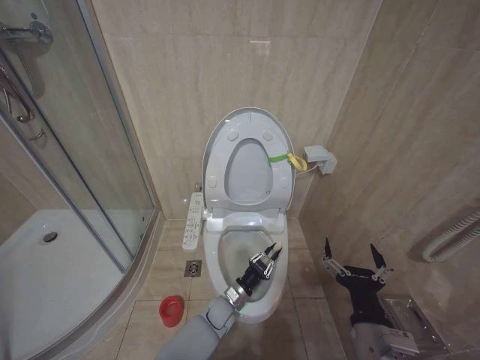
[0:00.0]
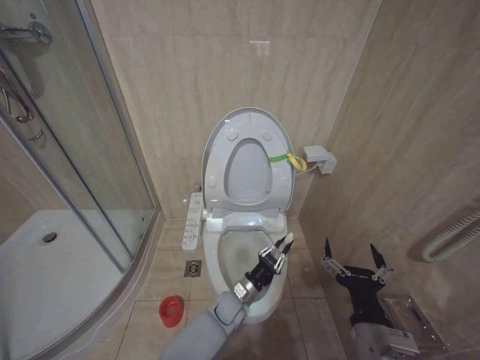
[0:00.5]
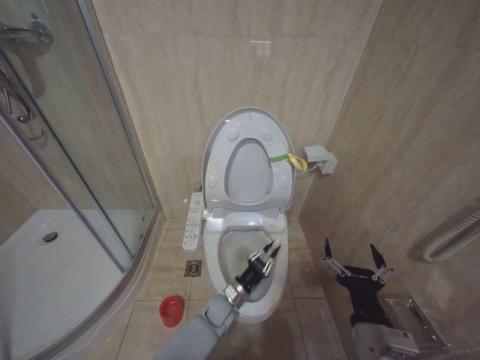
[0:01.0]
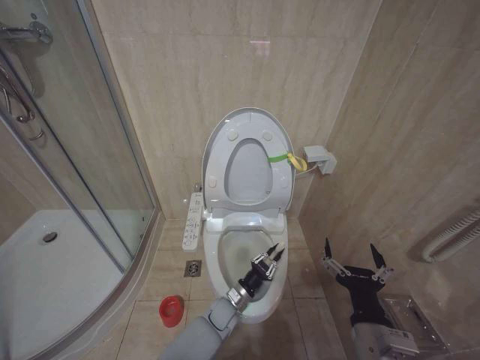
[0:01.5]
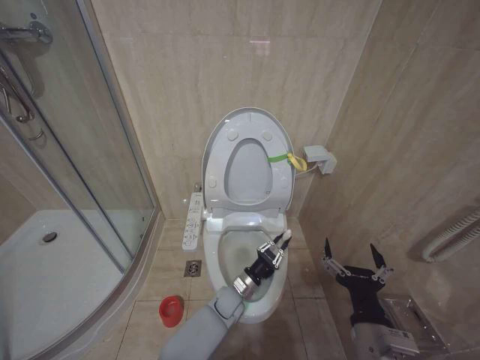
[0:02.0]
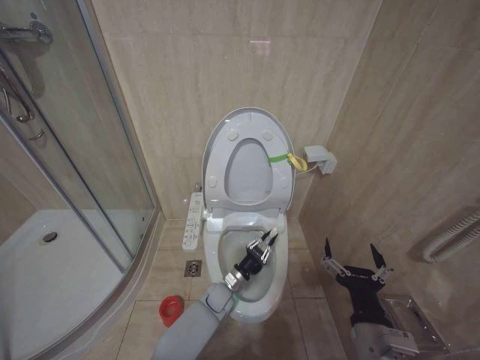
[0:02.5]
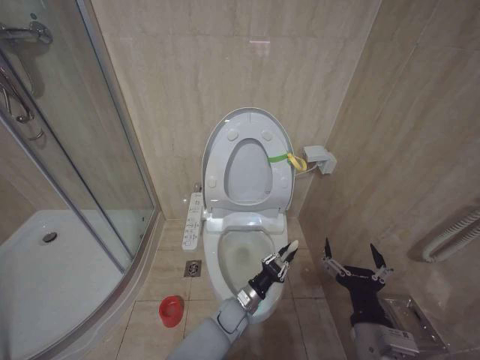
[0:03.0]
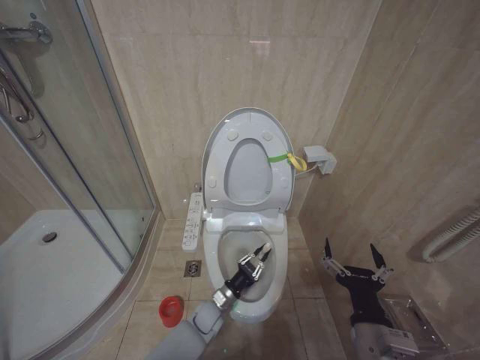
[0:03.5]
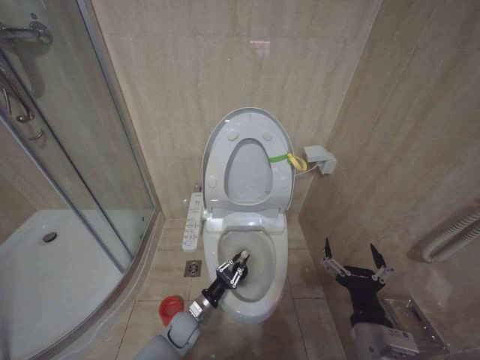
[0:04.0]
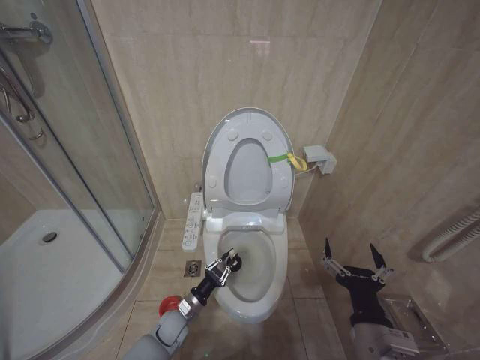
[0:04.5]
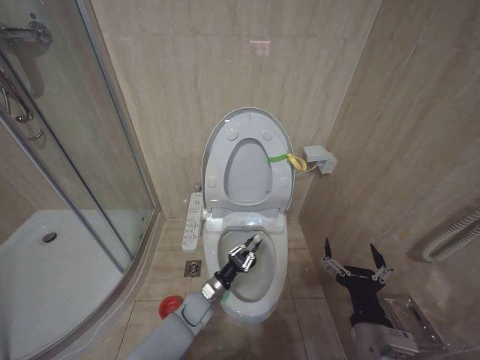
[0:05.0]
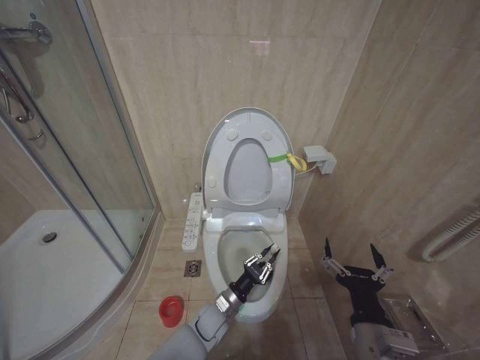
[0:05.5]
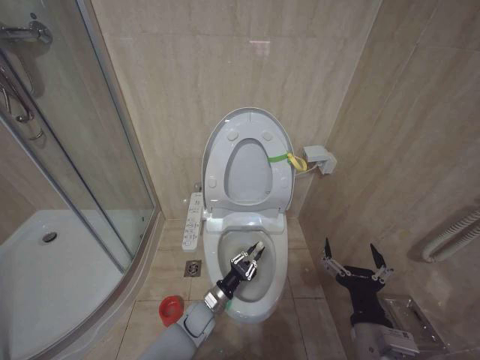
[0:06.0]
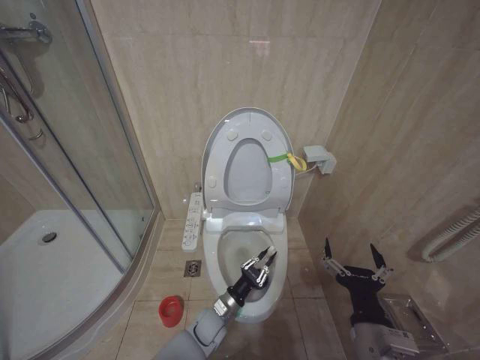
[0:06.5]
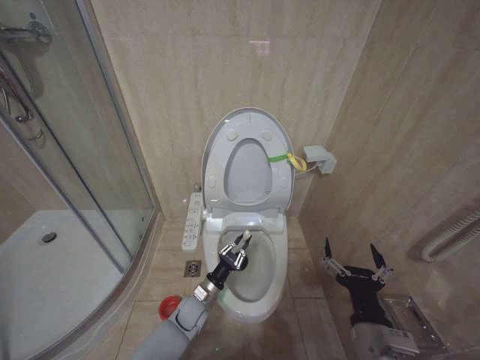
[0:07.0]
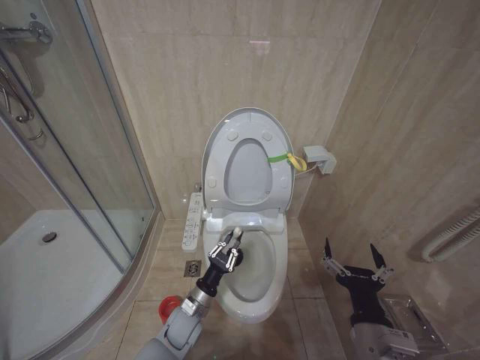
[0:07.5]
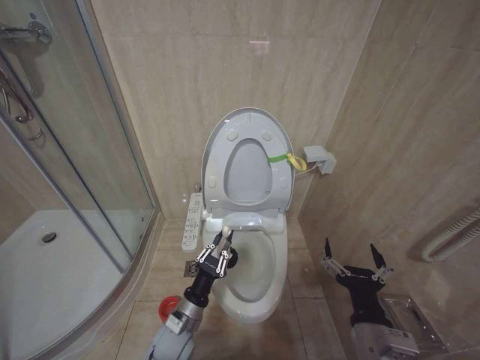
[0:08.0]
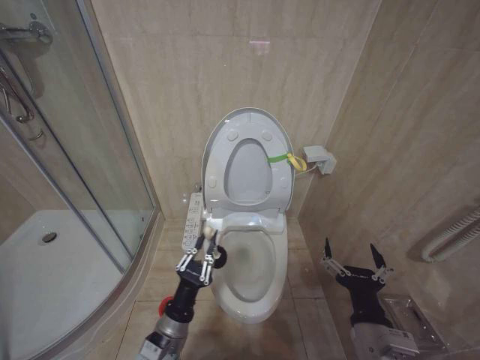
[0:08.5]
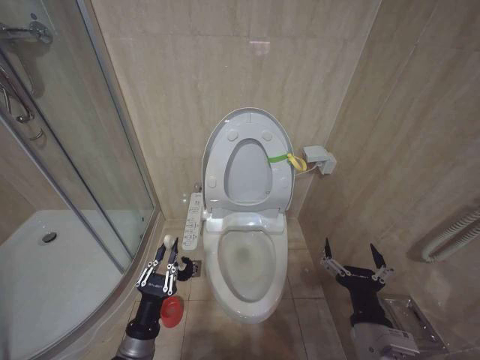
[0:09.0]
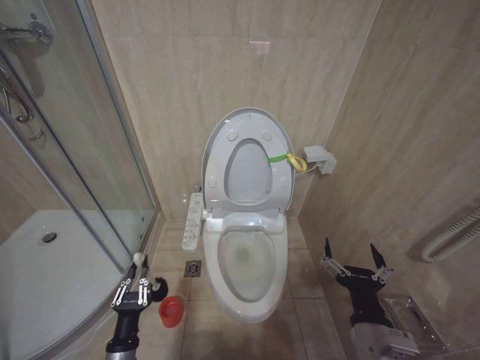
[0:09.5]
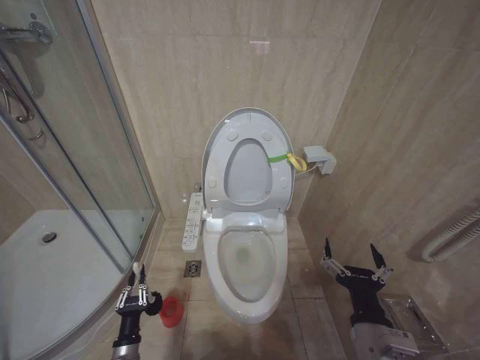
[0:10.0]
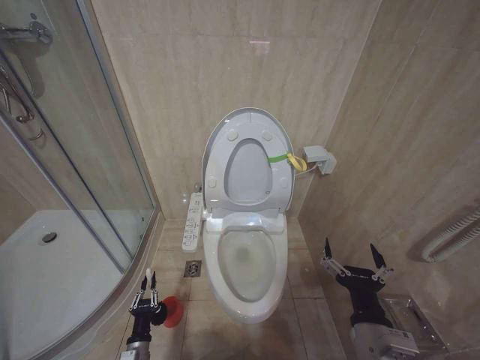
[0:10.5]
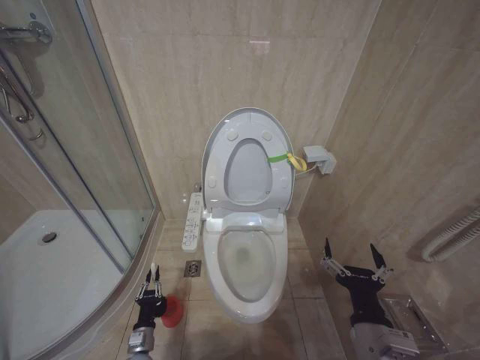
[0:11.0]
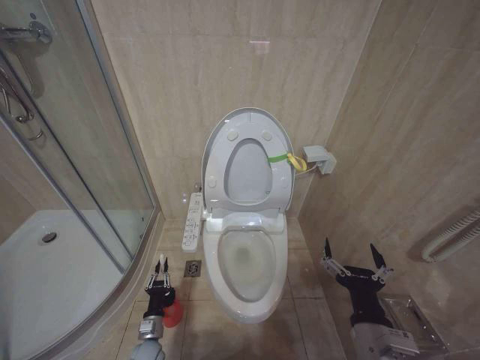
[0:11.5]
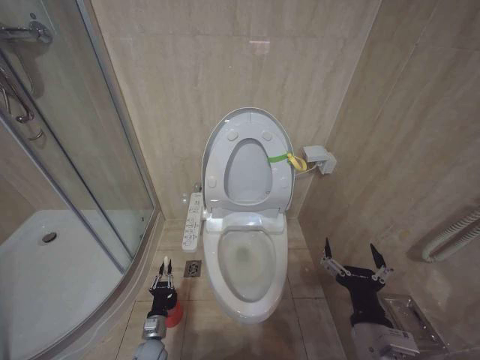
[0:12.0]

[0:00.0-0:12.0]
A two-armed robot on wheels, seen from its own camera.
Task of the whole recording: Open the toilet lid, clean the toilet bowl with a toilet brush, close the toilet lid, and flush.
0:00.0 to 0:02.0: The left gripper goes up and down, some 5 cm each way, reversing 2 times.
0:02.0 to 0:04.0: The left gripper shifts approximately 15 cm to the left and backward.
0:06.0 to 0:08.0: The left gripper moves upward and backward, approximately 10 cm.
0:08.0 to 0:10.0: The left gripper is displaced to the left, downward and backward by some 20 cm.
0:10.0 to 0:12.0: The left gripper is displaced downward and forward by about 15 cm.

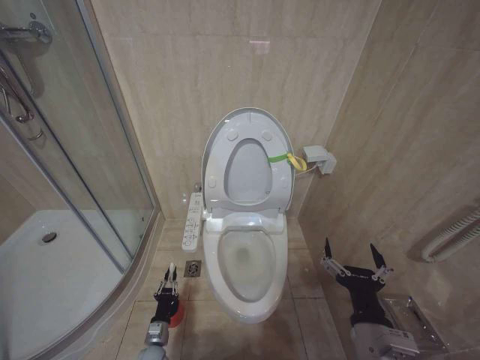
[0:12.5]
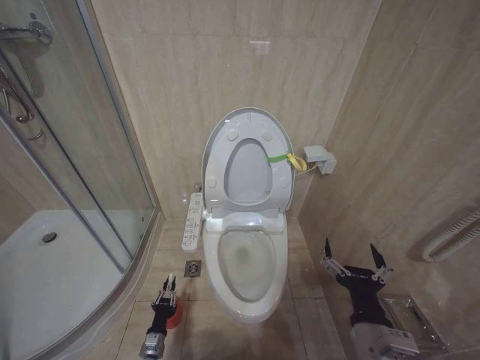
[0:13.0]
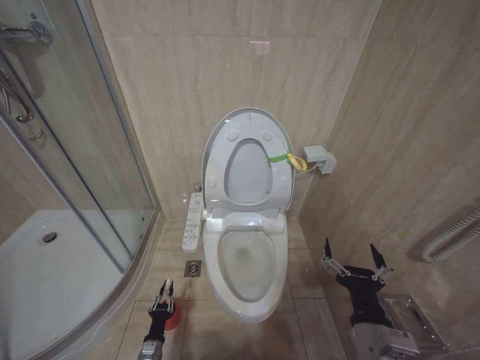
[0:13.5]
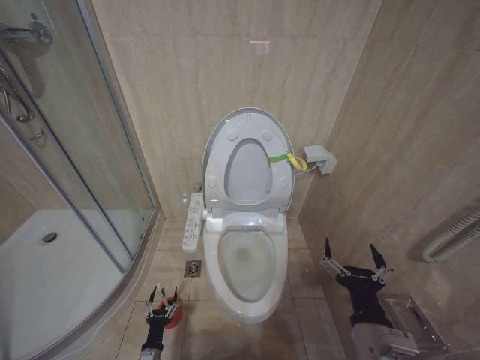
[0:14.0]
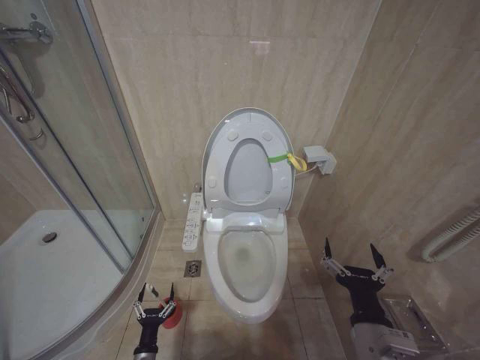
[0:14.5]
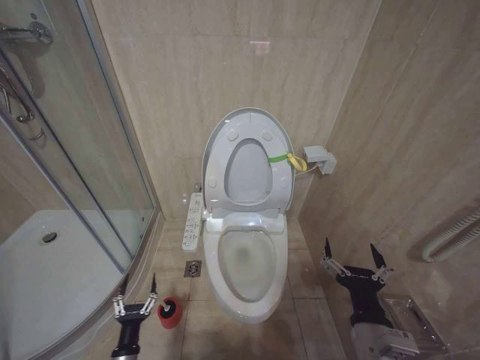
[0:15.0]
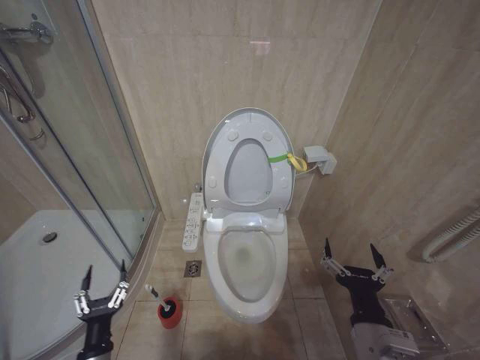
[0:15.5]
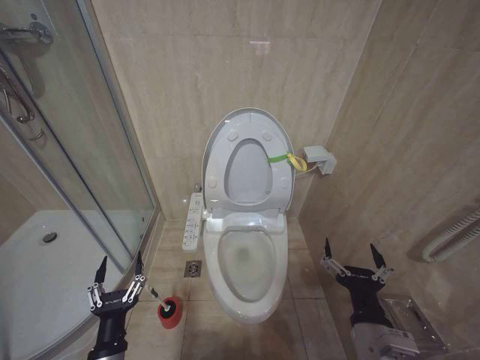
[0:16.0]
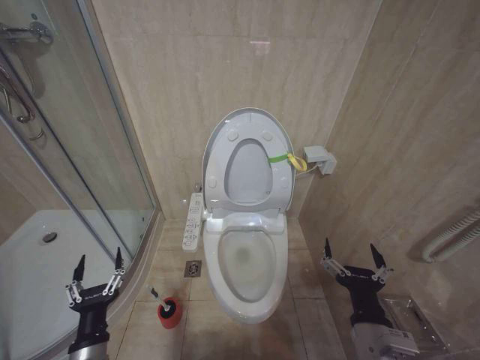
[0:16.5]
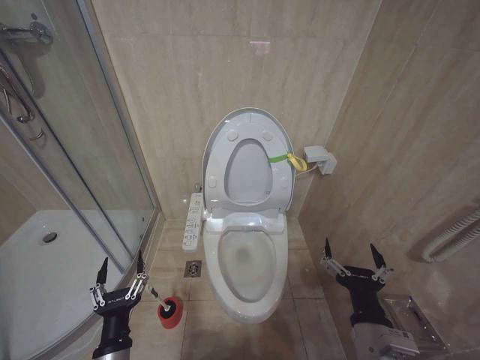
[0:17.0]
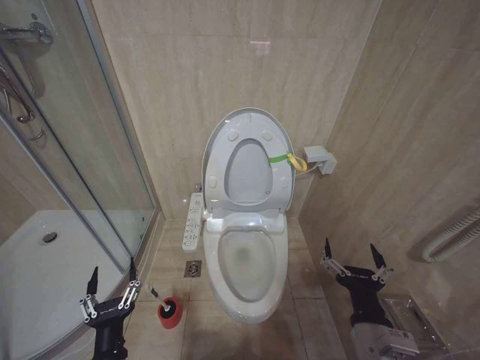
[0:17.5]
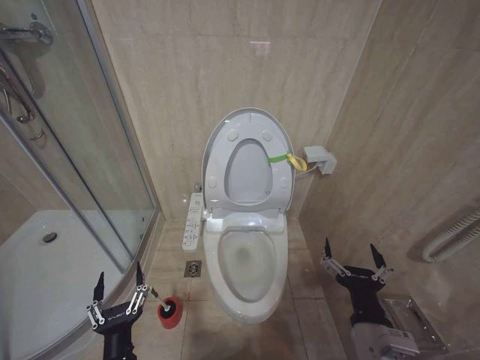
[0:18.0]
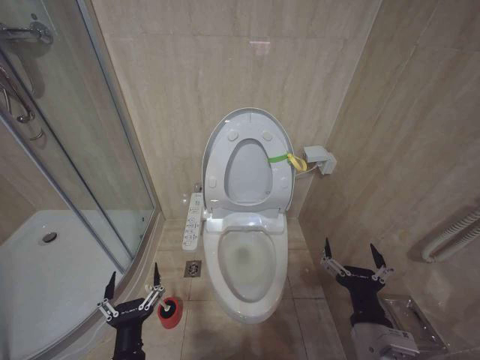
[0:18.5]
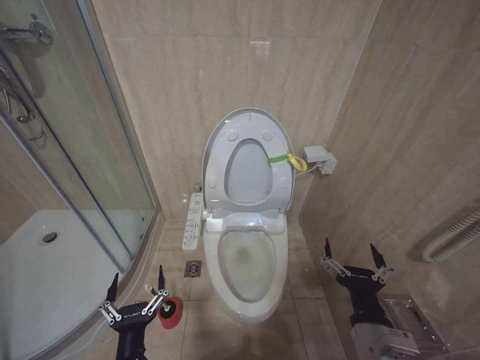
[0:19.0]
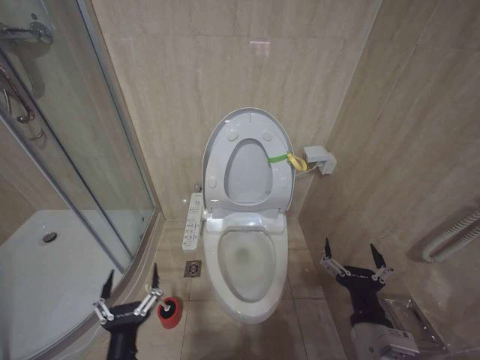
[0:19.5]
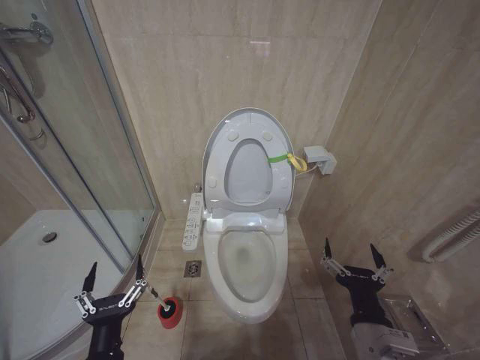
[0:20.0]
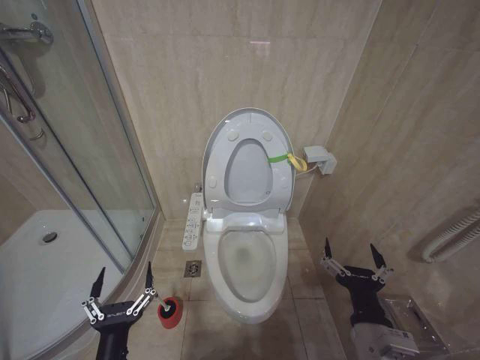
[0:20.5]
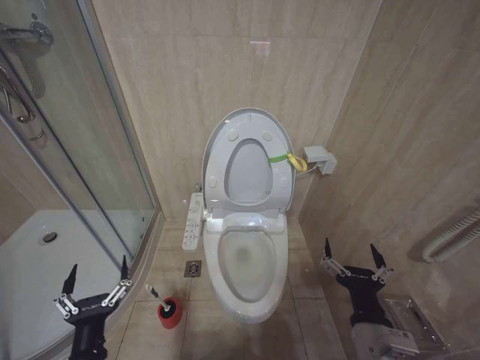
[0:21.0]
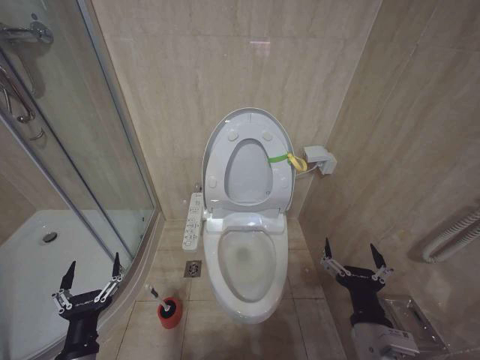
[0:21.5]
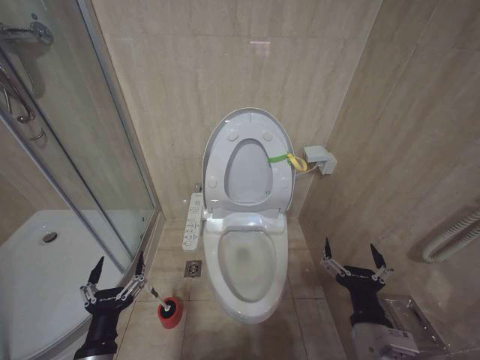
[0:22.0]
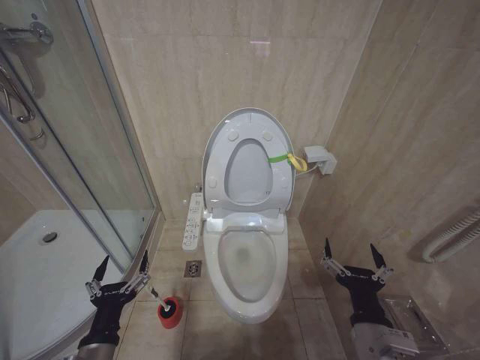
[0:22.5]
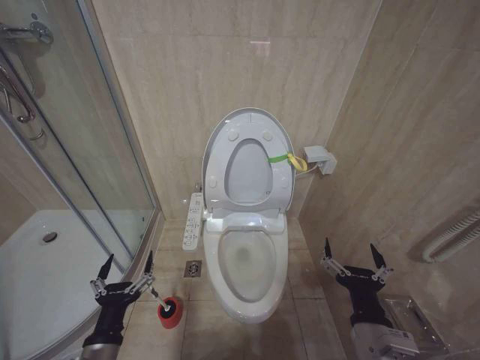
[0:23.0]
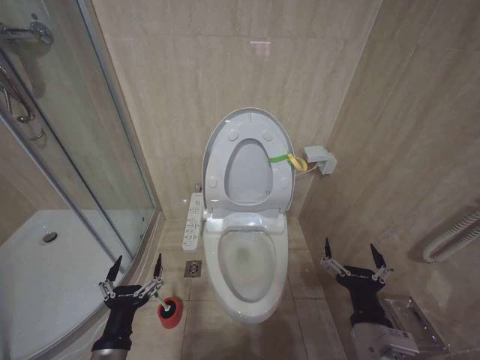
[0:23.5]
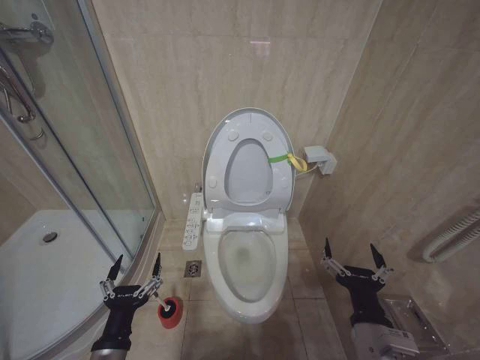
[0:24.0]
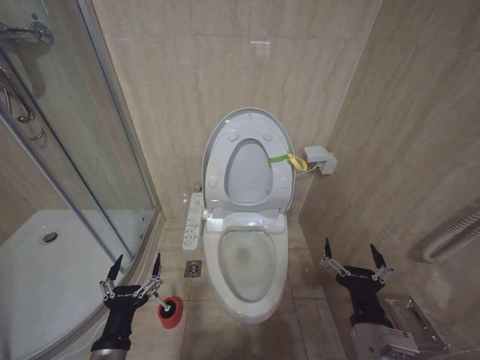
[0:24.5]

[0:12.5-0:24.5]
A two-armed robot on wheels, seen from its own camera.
Task of the whole recording: Open the toilet lid, clean the toilet bowl with a toilet brush, close the toilet lid, and flush.
0:12.5 to 0:14.5: The left gripper heads backward, covering about 10 cm, and opens.
0:14.5 to 0:16.5: The left gripper heads upward, covering approximately 25 cm.
0:16.5 to 0:18.5: The left gripper shifts approximately 10 cm to the right.
0:18.5 to 0:20.5: There are only small adjustments of the grippers.
0:20.5 to 0:22.5: The left gripper moves roughly 5 cm.
0:22.5 to 0:24.5: The grippers move only a little.

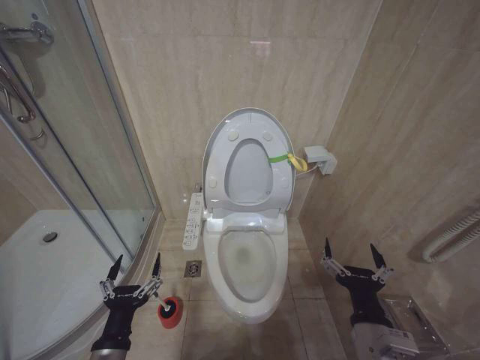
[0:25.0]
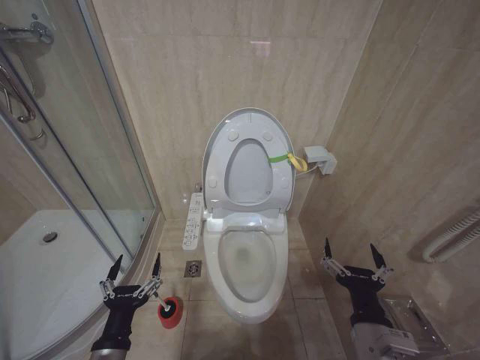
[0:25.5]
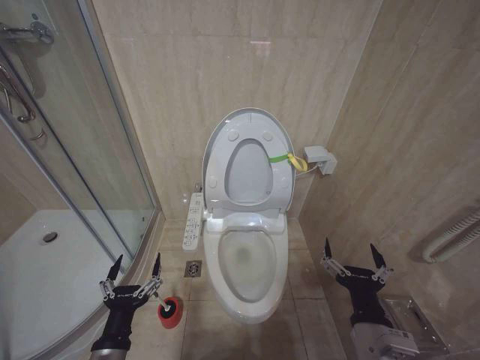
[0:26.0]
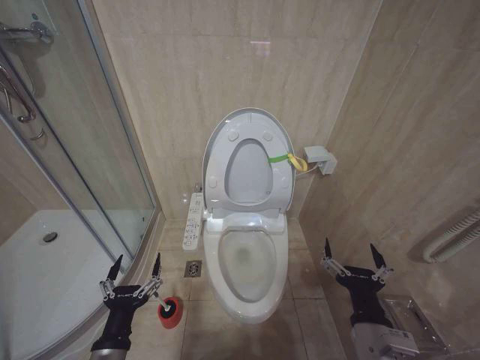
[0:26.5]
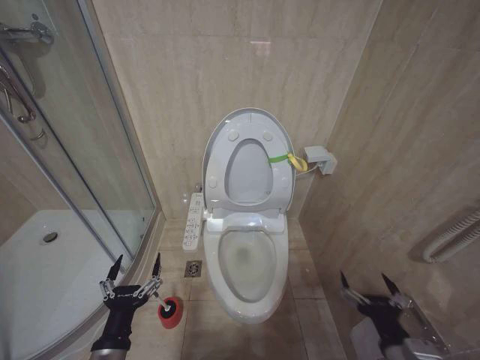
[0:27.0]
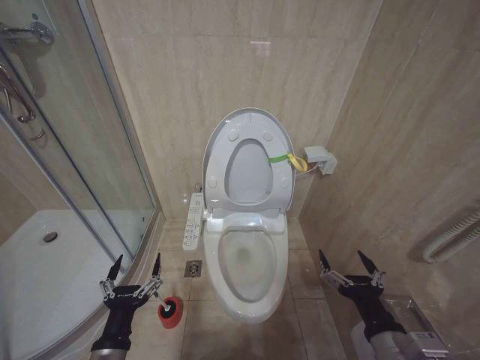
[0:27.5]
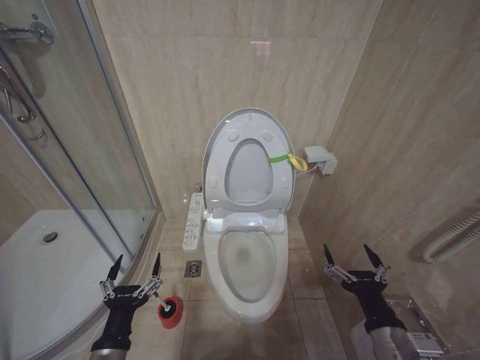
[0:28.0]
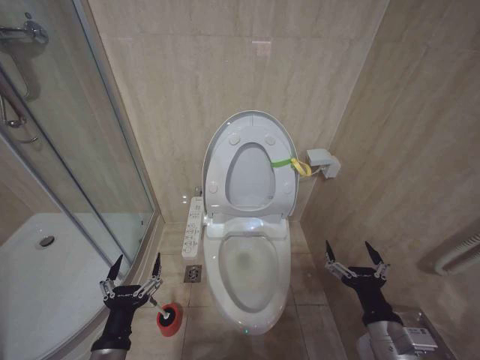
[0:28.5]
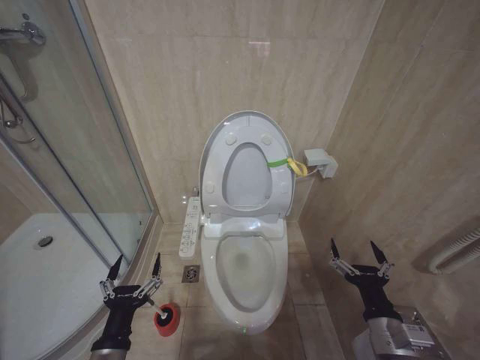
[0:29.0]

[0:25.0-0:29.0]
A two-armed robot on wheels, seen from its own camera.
Task of the whole recording: Open the toilet lid, clean the toilet bowl with a toilet brush, close the toilet lid, and flush.
0:25.0 to 0:27.0: The right gripper is displaced to the right by some 5 cm.
0:27.0 to 0:29.0: There are only small adjustments of the grippers.
